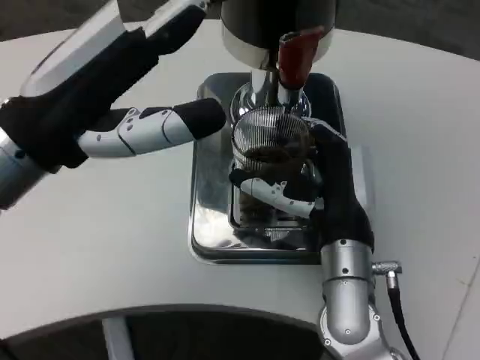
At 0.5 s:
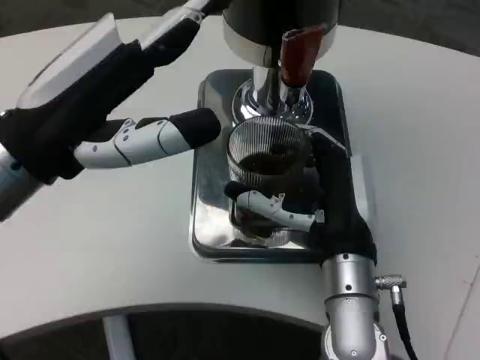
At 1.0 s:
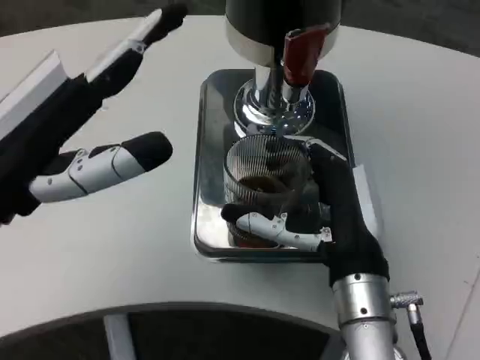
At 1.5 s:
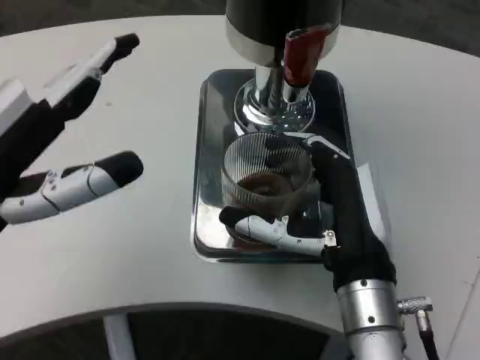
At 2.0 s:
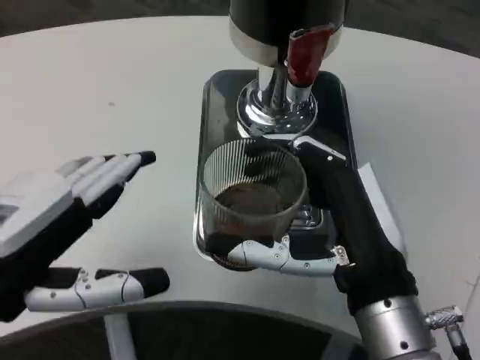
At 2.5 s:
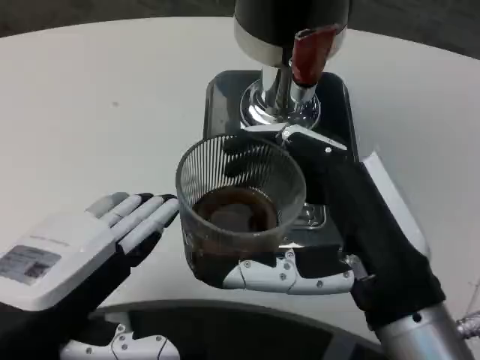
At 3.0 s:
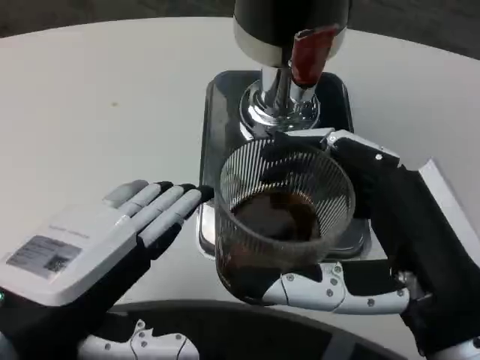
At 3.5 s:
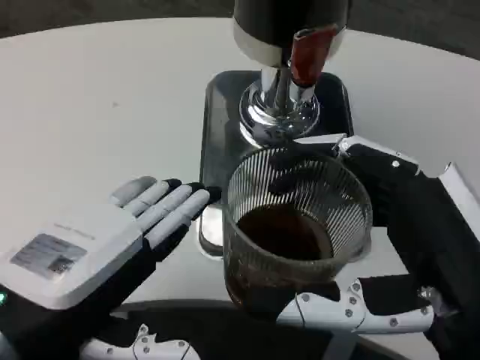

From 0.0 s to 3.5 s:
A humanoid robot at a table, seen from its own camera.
Task of the whole recording: Grasp the cup under the faucet to collect the drink, then remove the cup.
From 0.0 s to 2.0 s: The right hand heads backward, covering roughly 10 cm; the left hand moves backward and downward, about 10 cm.
From 2.0 s to 3.5 s: The right hand is displaced backward by some 10 cm.

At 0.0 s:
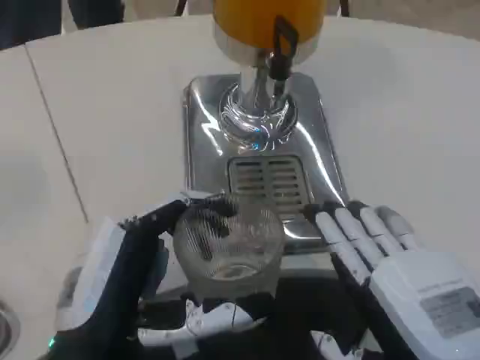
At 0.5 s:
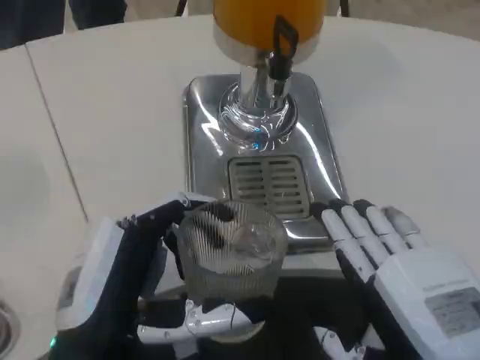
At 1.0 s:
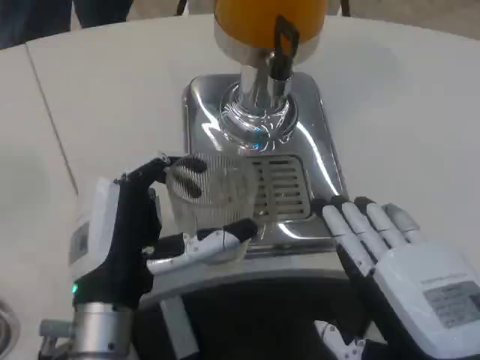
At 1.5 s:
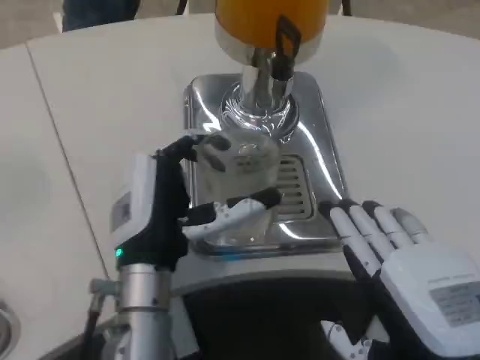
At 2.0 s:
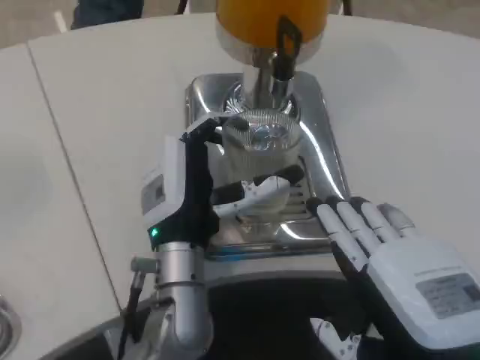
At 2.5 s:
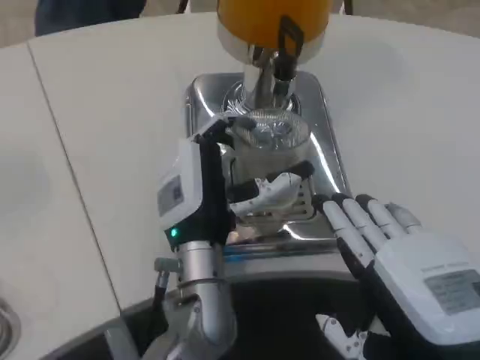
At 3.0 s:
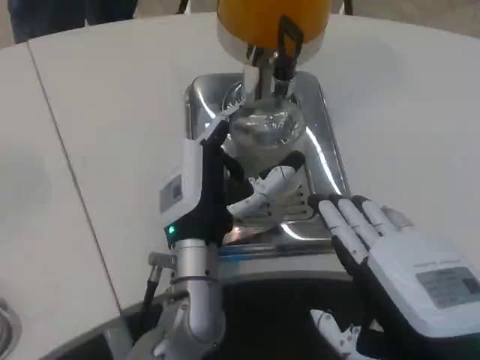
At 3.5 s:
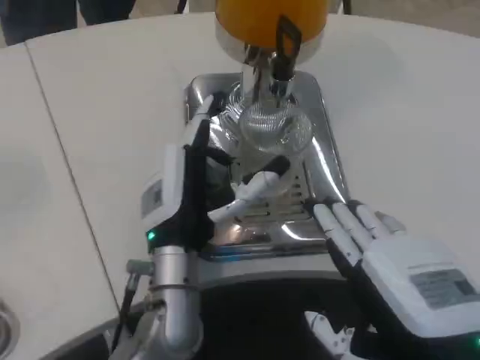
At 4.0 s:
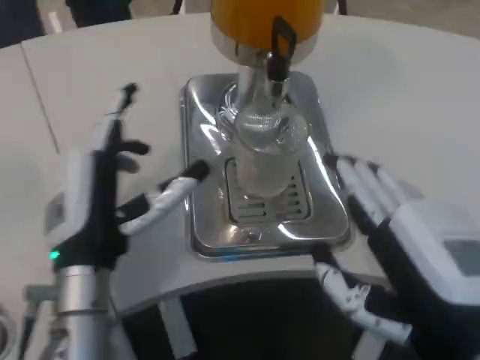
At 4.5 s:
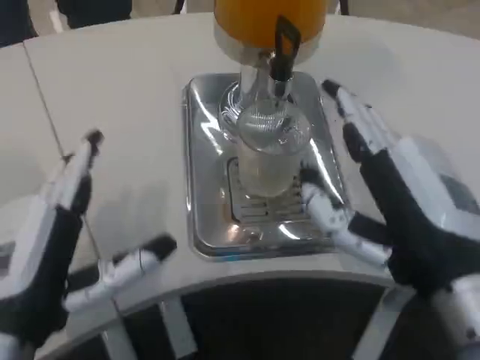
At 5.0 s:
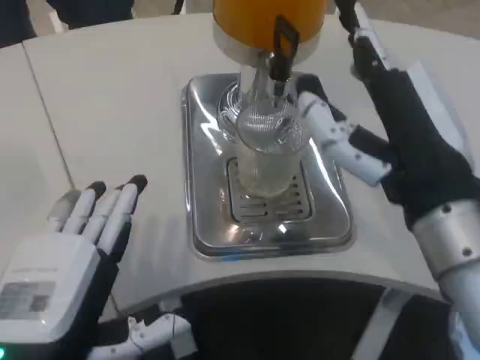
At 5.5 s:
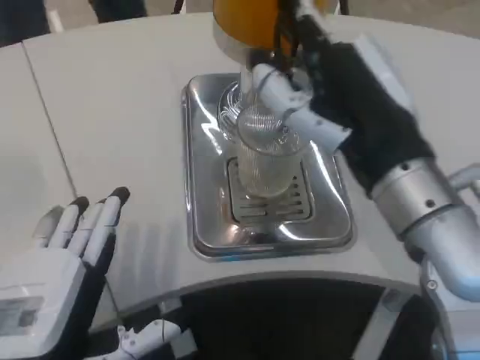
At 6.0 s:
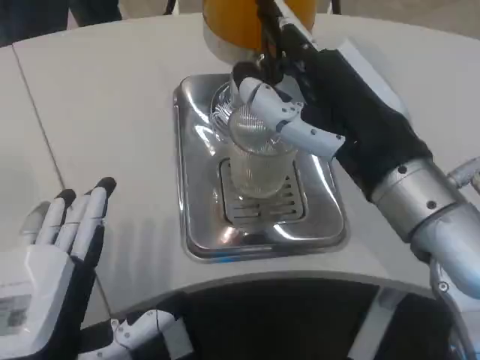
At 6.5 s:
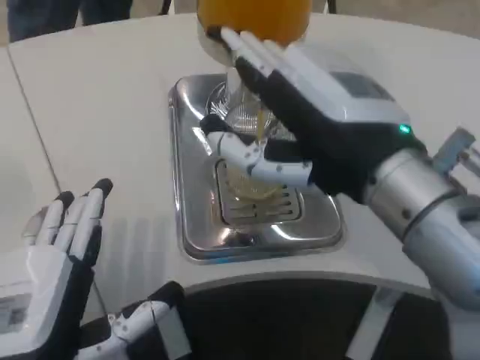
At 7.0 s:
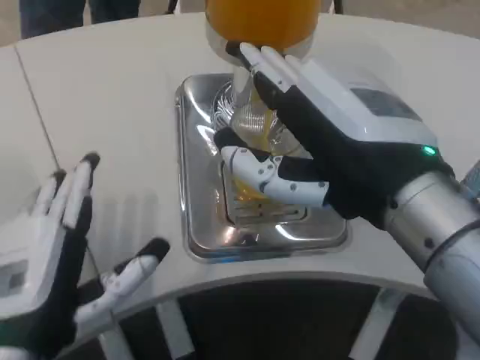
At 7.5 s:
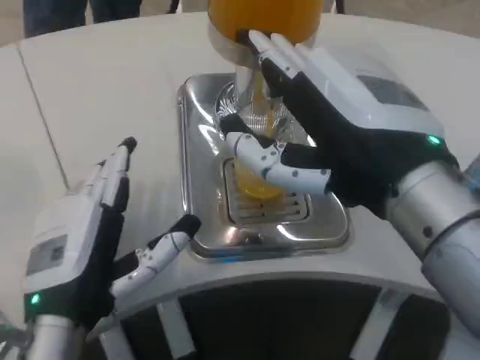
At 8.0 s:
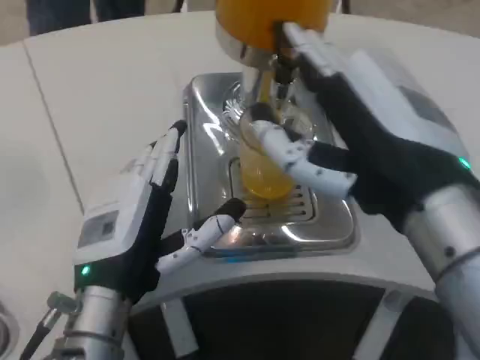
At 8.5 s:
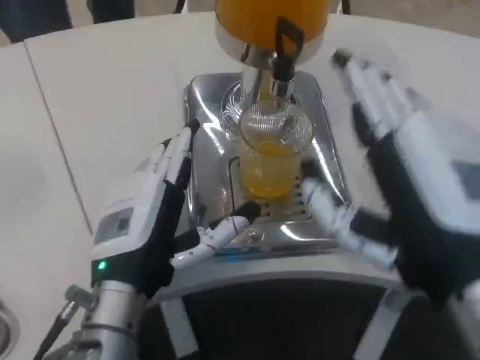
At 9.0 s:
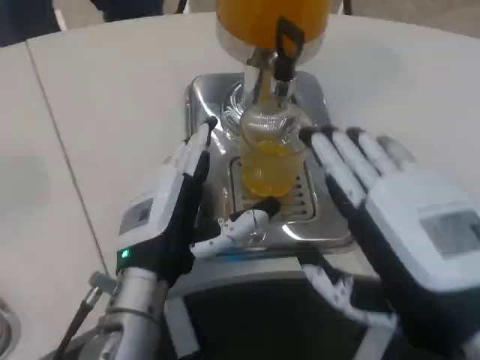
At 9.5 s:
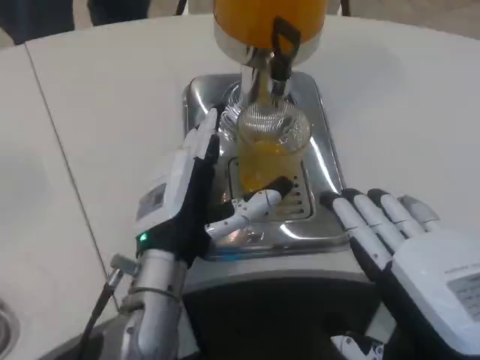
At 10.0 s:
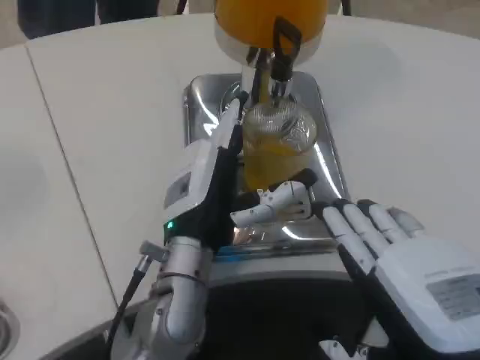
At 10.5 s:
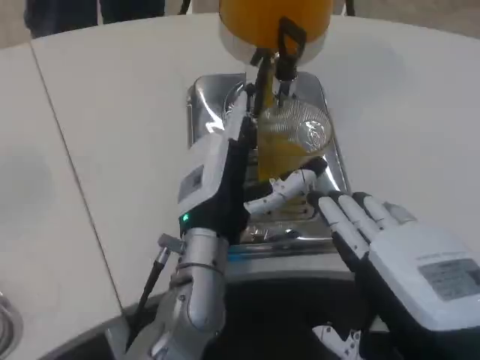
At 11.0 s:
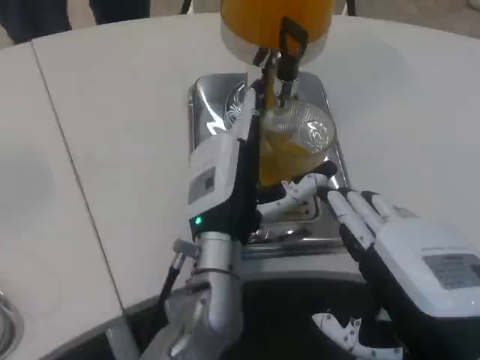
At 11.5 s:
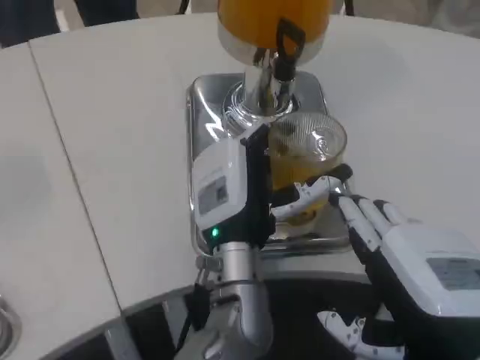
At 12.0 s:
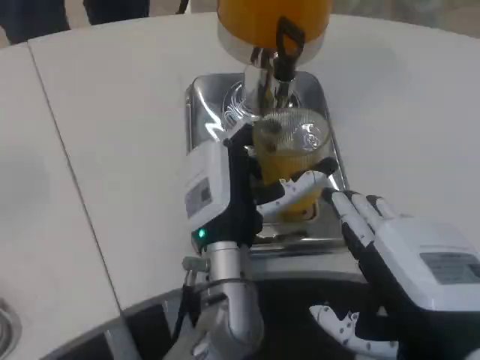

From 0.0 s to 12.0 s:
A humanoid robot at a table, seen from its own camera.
Task of the whole recording: Grasp the cup under the faucet to collect the drink, then remove the cup.
From 0.0 s to 2.0 s: The left hand is displaced forward and to the right by roughly 15 cm.
From 2.0 s to 4.0 s: The left hand shifts about 10 cm to the left.
From 4.0 s to 6.0 s: The left hand goes approximately 15 cm backward. Meanwhile the right hand goes roughly 10 cm forward and upward.
From 6.0 s to 8.0 s: The left hand is displaced forward by roughly 10 cm. Meanwhile the right hand shifts roughly 5 cm backward.
From 8.0 s to 10.0 s: The right hand travels downward and backward by roughly 10 cm, while the left hand travels to the right and forward by some 10 cm.
From 10.0 s to 12.0 s: The left hand heads to the right, covering approximately 5 cm.

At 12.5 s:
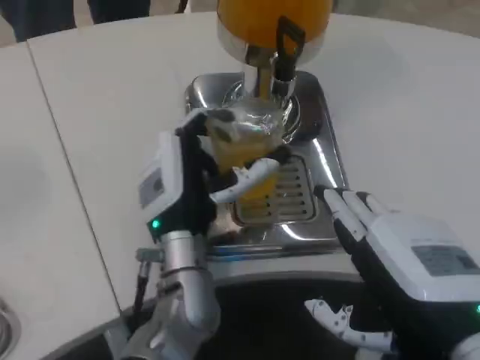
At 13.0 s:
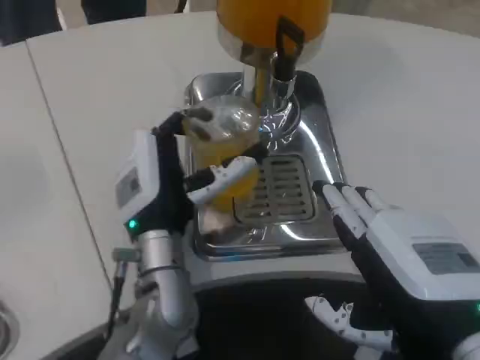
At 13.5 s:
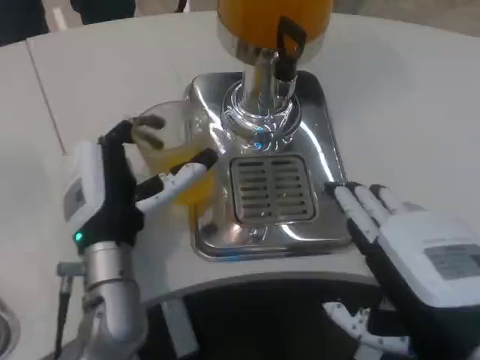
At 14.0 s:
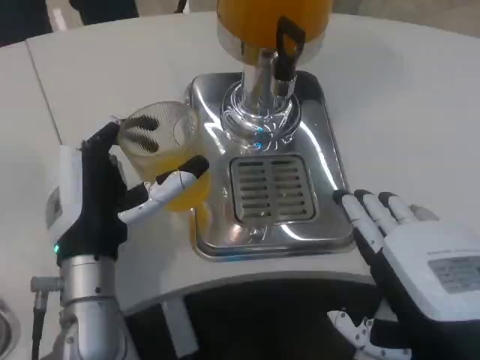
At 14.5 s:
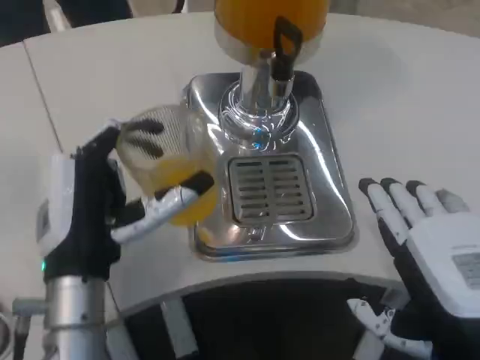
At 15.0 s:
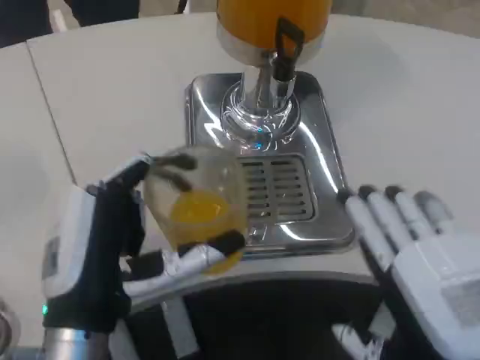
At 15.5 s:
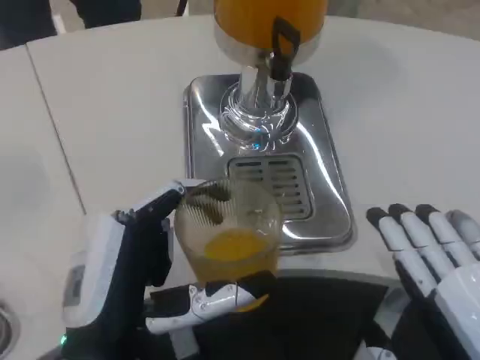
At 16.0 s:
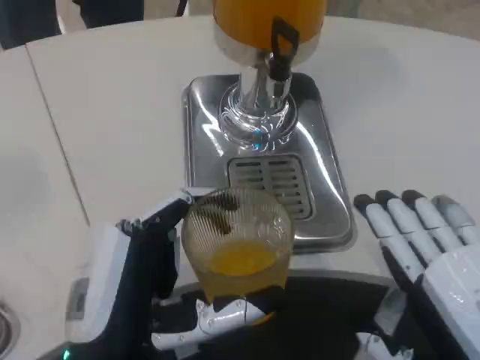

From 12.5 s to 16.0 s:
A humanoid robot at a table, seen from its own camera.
Task of the whole recording: Grasp the cup under the faucet to collect the drink, then remove the cup.
From 12.5 s to 14.5 s: The left hand is displaced to the left and backward by about 10 cm.
From 14.5 s to 16.0 s: The left hand moves backward, about 10 cm.

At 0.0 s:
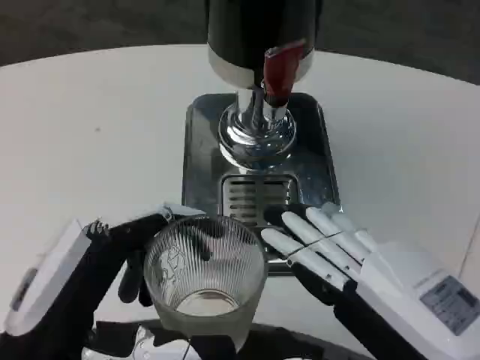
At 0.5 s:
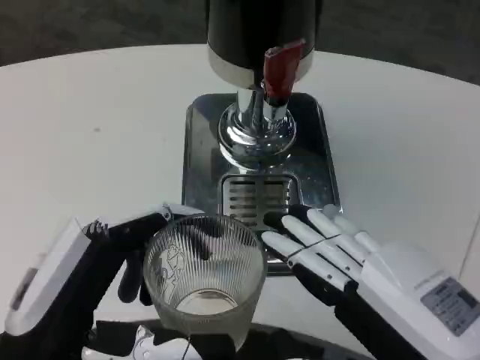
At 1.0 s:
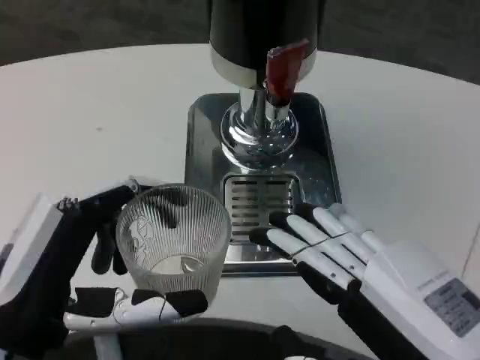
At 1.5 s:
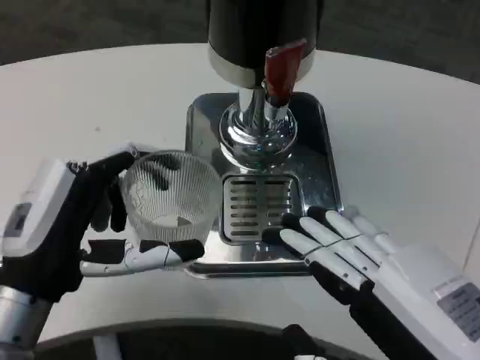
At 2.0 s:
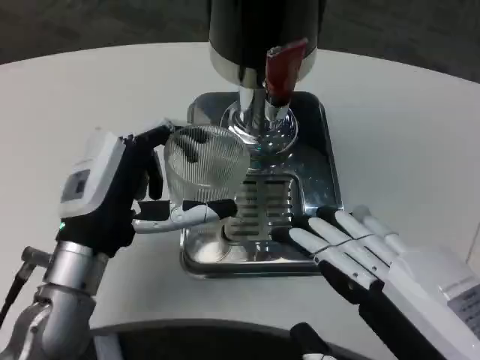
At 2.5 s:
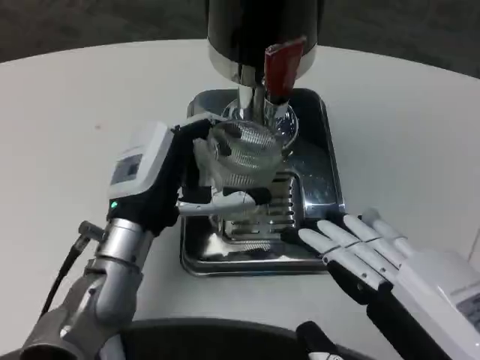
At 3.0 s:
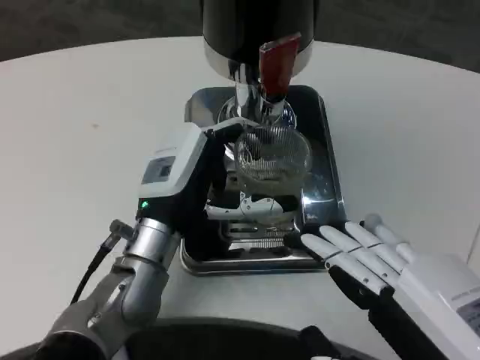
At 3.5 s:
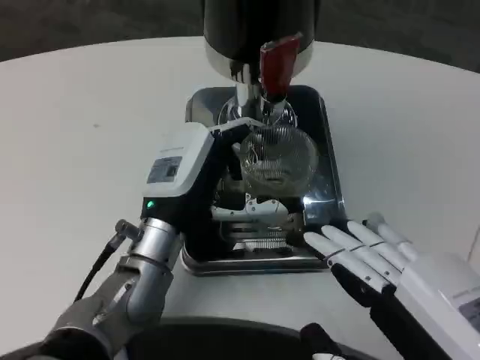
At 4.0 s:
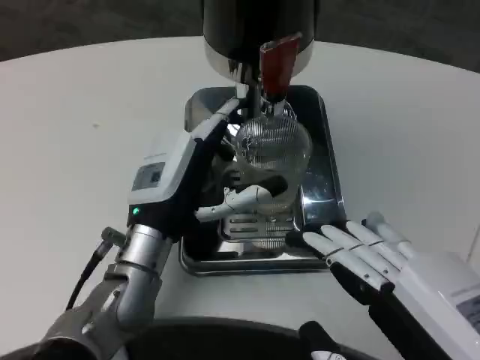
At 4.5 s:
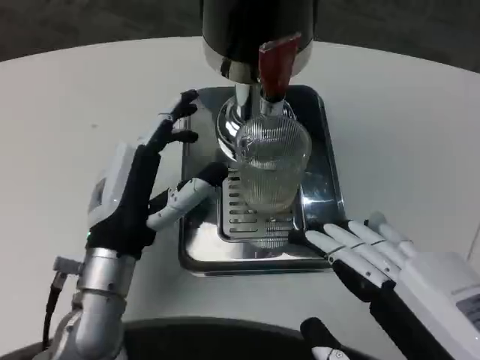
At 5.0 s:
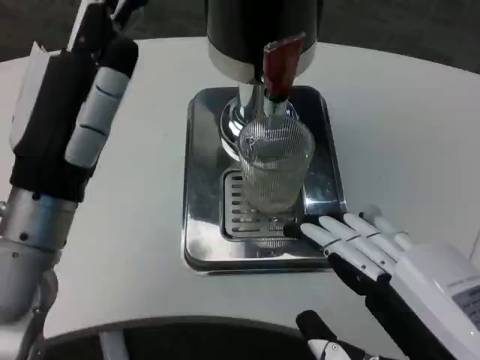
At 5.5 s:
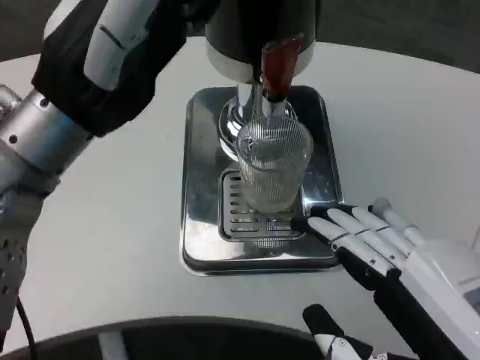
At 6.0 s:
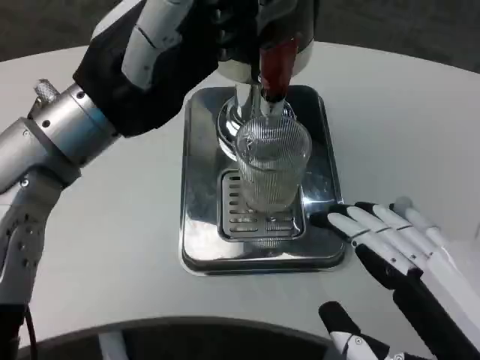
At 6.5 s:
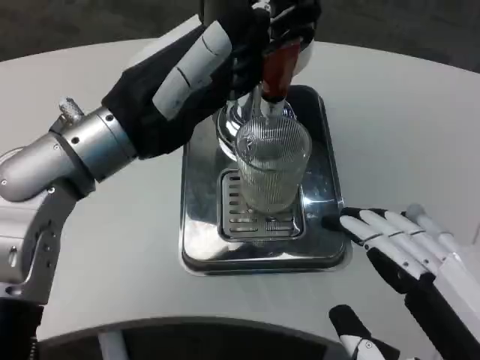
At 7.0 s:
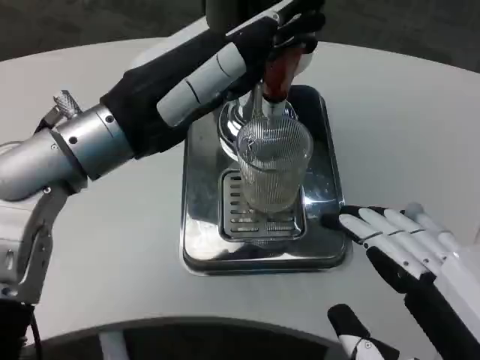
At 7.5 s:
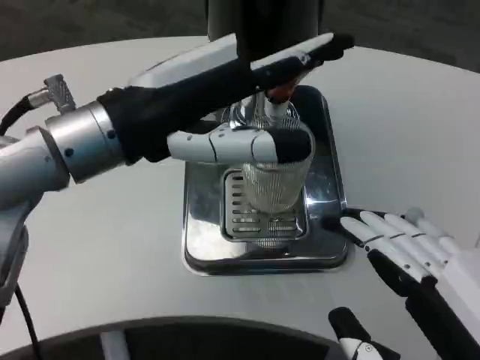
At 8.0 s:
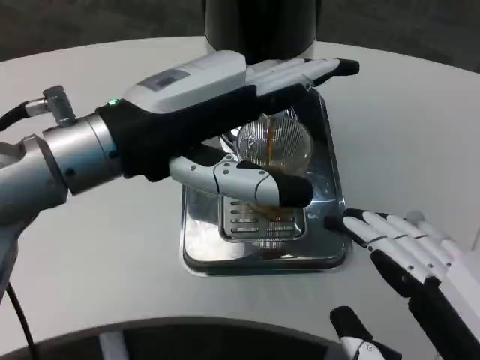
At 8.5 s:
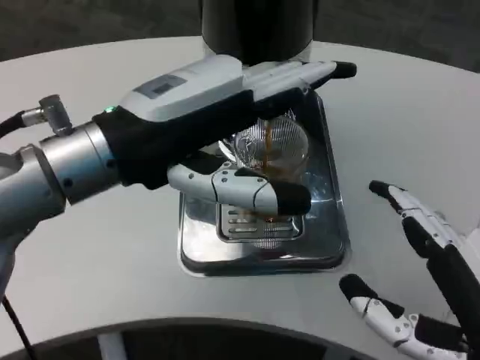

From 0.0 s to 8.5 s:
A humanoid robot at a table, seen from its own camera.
Task of the whole recording: Grasp the cup under the faucet to collect the drink, then remove the cup.
From 0.0 s to 2.0 s: The left hand shifts approximately 15 cm forward.
From 2.0 s to 4.0 s: The left hand is displaced to the right by about 5 cm.
From 4.0 s to 6.5 s: The left hand moves upward, approximately 15 cm.
